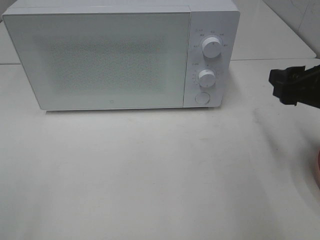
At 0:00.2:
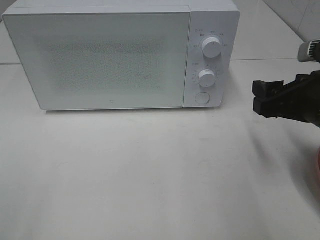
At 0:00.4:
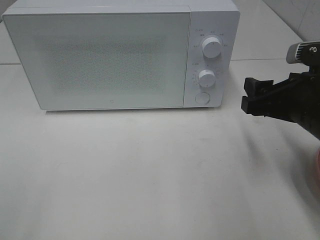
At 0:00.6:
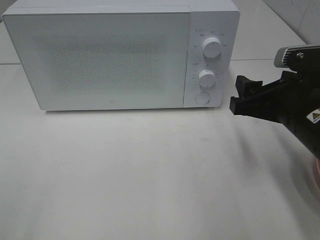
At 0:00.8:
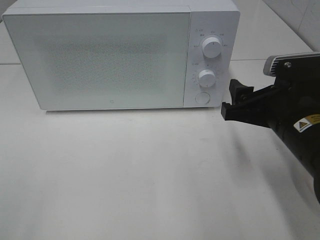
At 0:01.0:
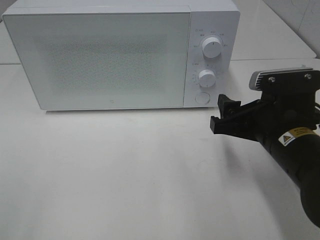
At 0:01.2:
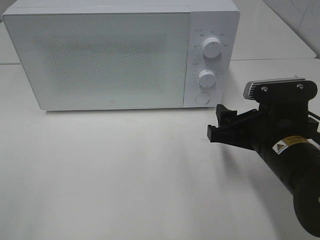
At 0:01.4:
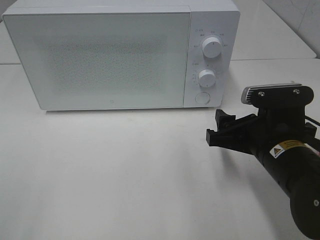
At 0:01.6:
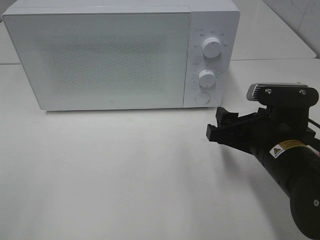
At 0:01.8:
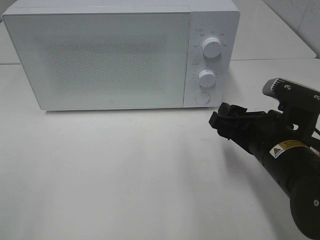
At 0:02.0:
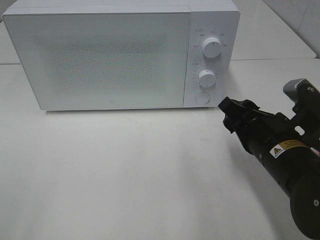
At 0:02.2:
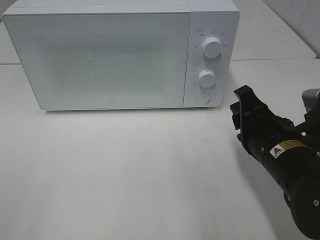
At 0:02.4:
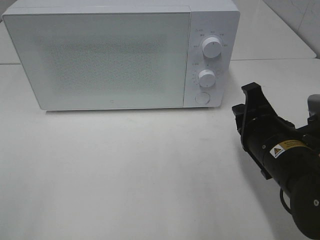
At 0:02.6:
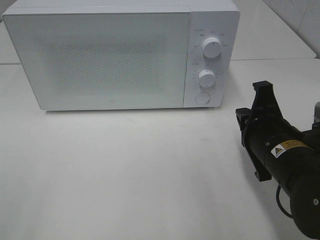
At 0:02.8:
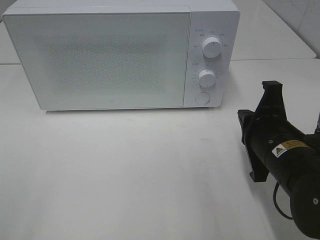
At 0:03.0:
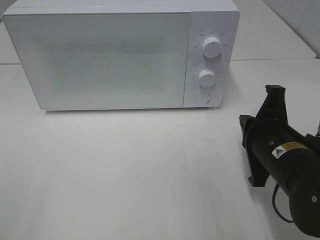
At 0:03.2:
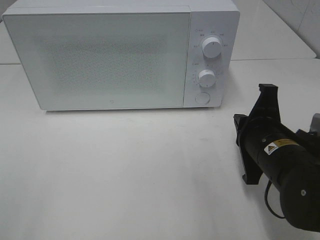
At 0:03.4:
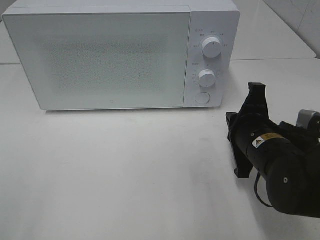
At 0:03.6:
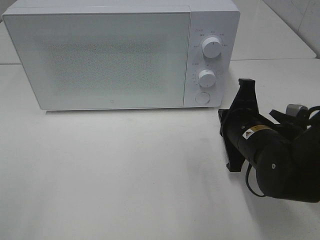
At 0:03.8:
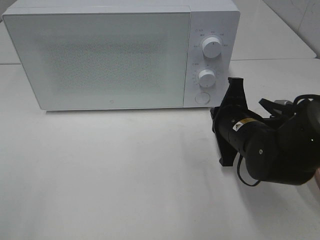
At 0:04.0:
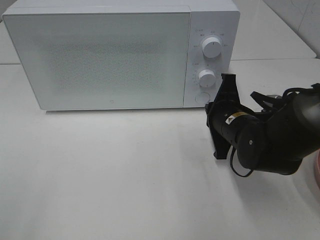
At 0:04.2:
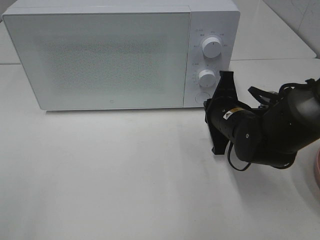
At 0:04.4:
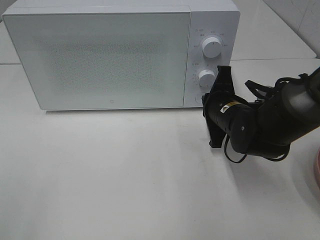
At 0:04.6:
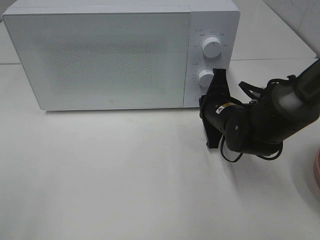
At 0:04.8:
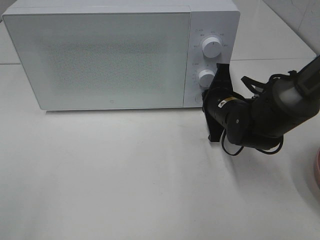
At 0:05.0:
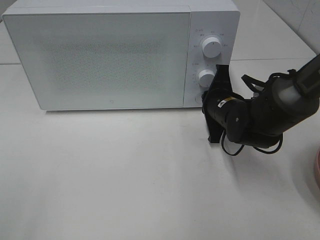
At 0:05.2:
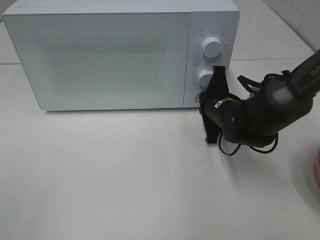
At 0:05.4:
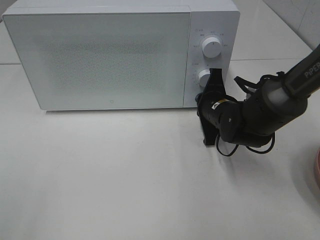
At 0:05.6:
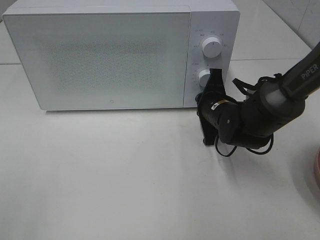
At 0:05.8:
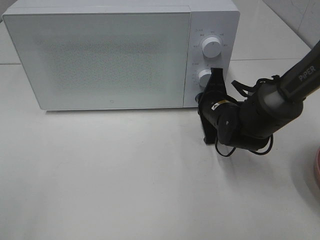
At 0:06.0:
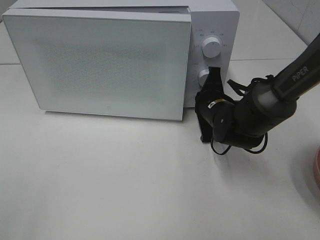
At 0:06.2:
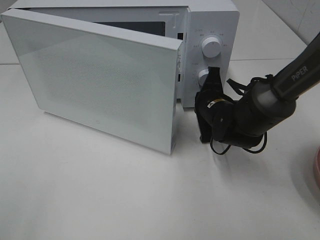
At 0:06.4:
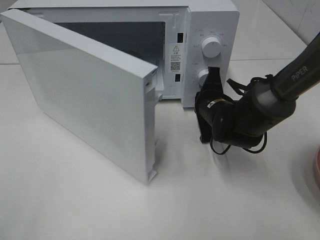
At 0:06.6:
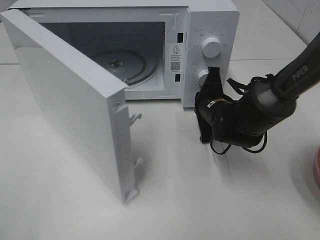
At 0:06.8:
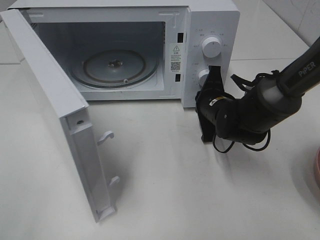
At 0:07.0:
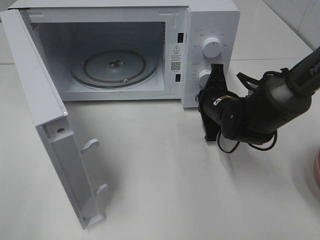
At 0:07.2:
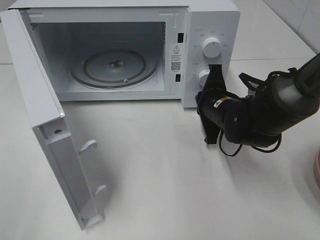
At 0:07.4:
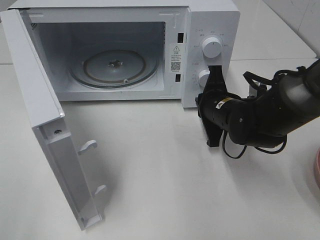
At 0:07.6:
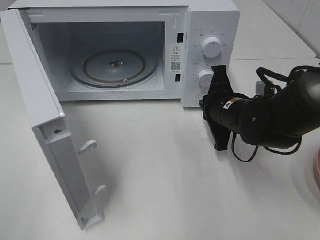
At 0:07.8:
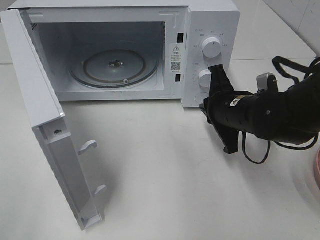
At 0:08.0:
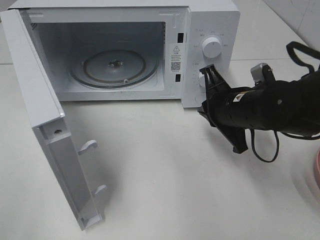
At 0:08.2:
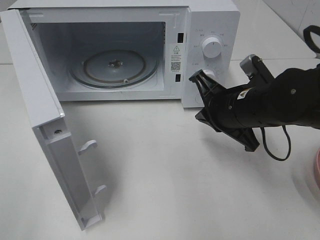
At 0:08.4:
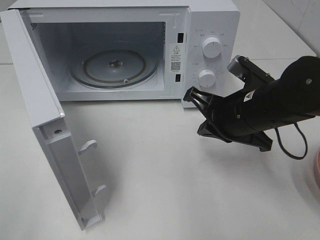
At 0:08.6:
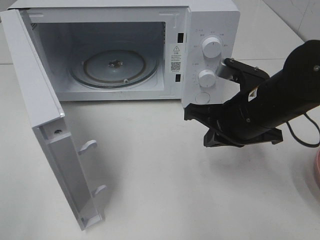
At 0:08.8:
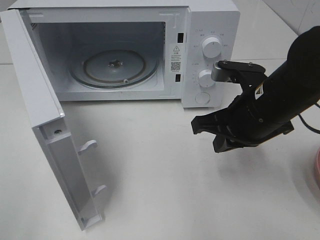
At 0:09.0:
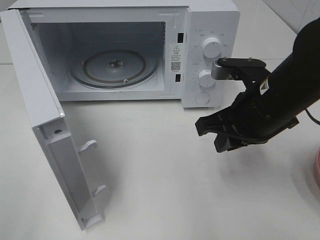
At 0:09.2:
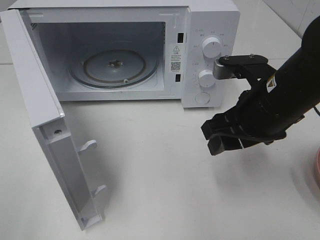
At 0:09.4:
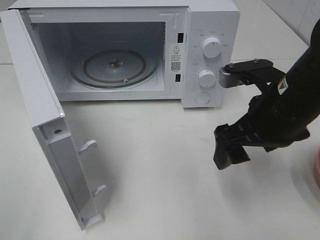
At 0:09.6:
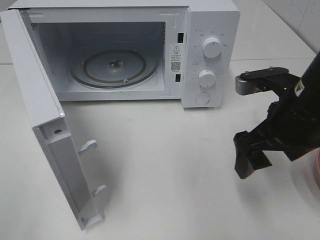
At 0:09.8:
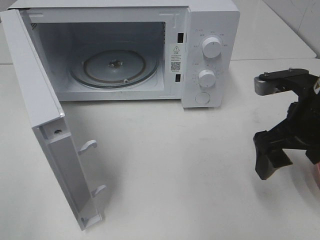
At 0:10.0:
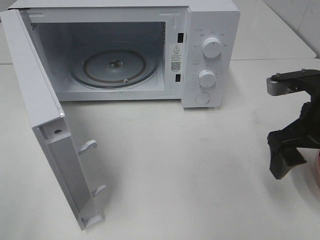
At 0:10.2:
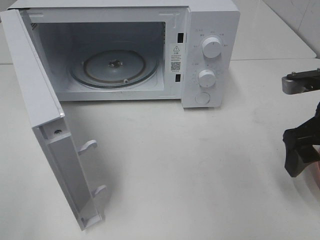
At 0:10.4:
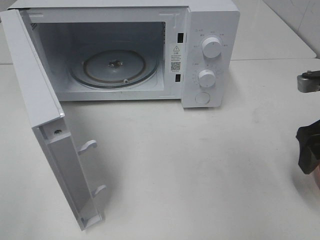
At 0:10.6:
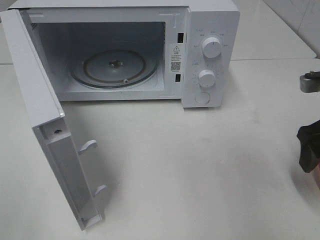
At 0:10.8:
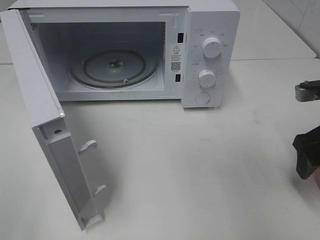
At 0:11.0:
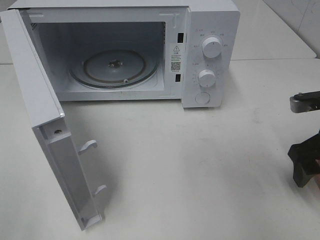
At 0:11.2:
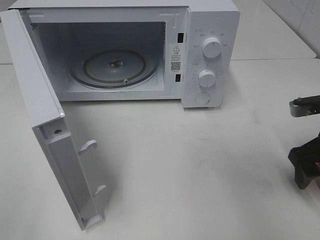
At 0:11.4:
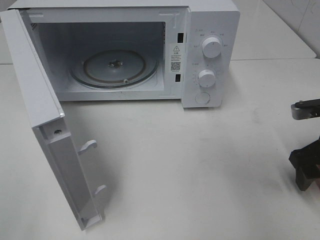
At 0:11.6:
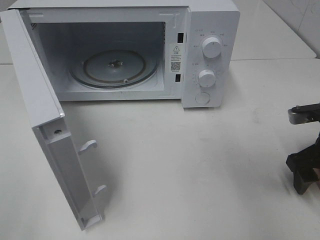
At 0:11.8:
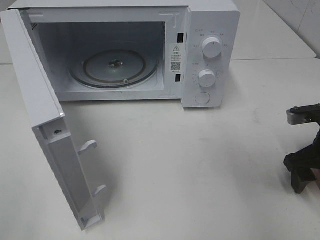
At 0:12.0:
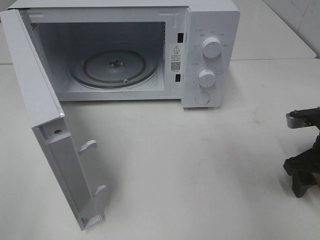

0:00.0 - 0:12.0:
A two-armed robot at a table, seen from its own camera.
Task of the whole recording: Heat the burger.
Step, 0:00.0 - 0:07.4: Right hand: press the switch.
0:00.0 - 0:01.6: The right gripper moves to the left and downward, roughly 10 cm.
0:01.6 - 0:03.0: The right gripper closes its fingers.
0:03.0 - 0:04.4: The right gripper shifts some 10 cm forward.
0:04.4 - 0:06.0: The grippers make only small movements.
0:06.0 - 0:07.6: The right gripper shifts by approximately 5 cm.
0:07.6 - 0:09.0: The right gripper travels upward and backward by approximately 10 cm.
0:09.0 - 0:10.4: The right gripper heads to the right, covering some 15 cm, and opens up.
0:10.4 - 0:12.0: The right gripper moves downward, some 10 cm.

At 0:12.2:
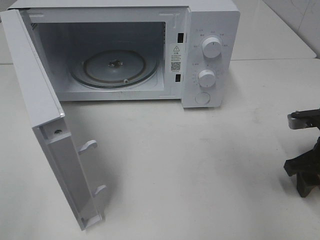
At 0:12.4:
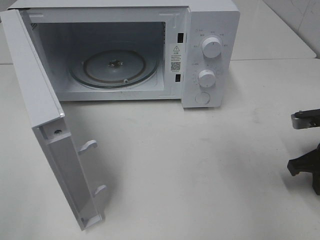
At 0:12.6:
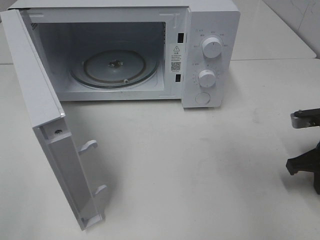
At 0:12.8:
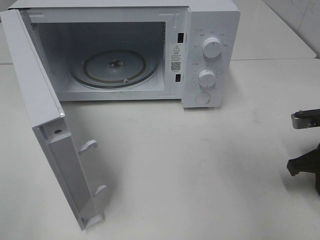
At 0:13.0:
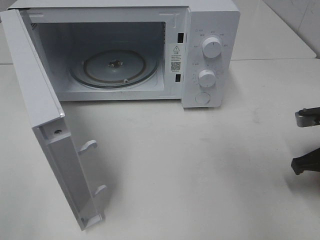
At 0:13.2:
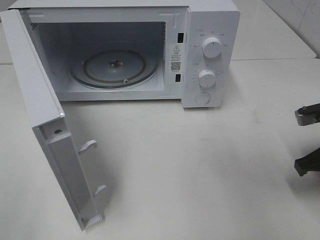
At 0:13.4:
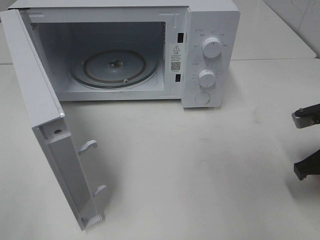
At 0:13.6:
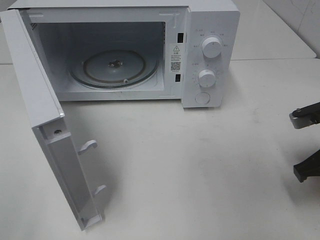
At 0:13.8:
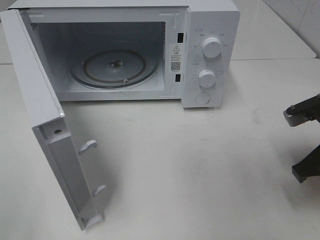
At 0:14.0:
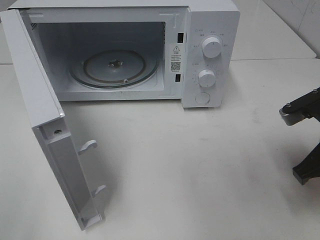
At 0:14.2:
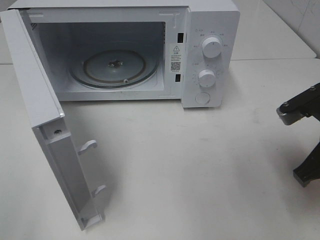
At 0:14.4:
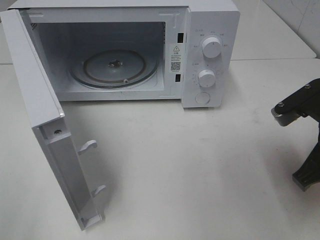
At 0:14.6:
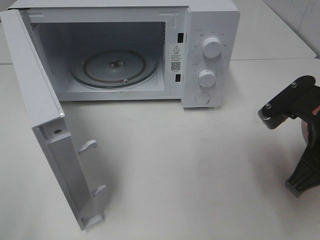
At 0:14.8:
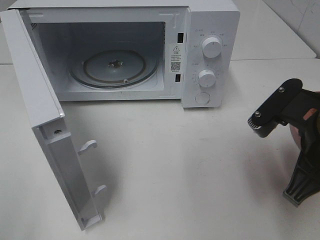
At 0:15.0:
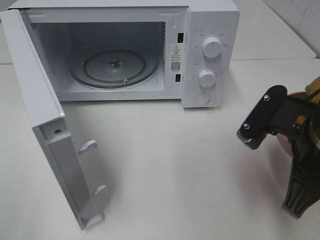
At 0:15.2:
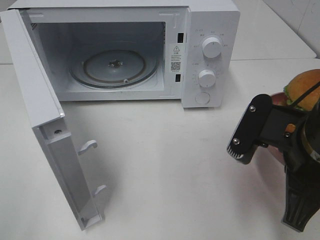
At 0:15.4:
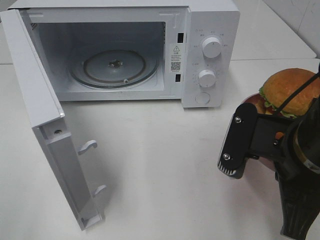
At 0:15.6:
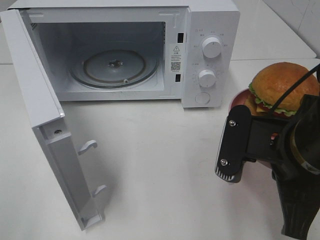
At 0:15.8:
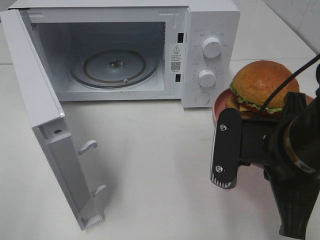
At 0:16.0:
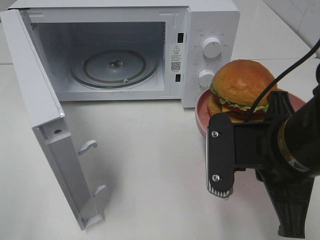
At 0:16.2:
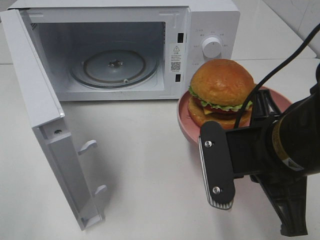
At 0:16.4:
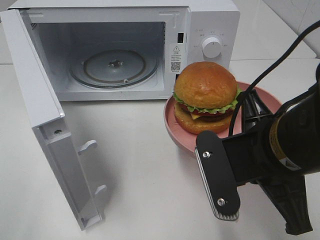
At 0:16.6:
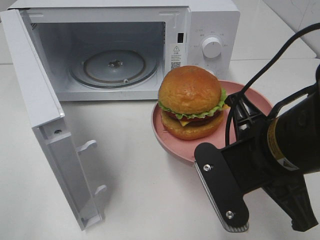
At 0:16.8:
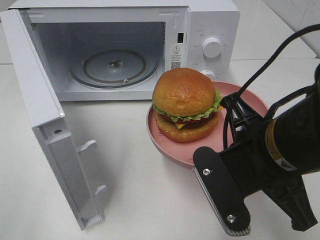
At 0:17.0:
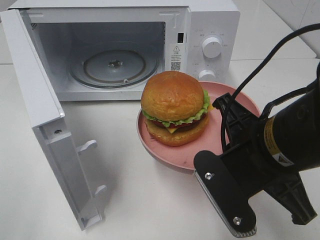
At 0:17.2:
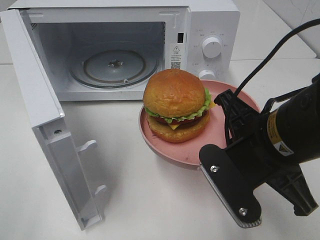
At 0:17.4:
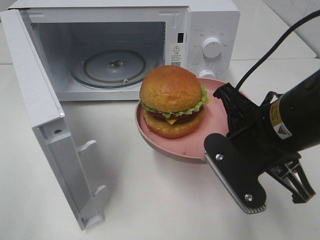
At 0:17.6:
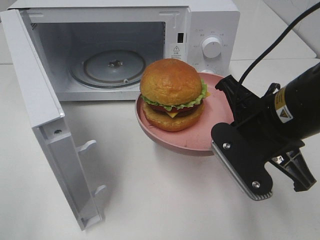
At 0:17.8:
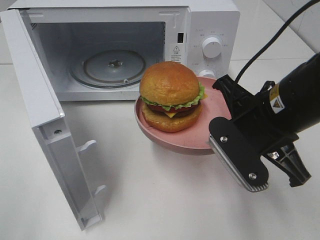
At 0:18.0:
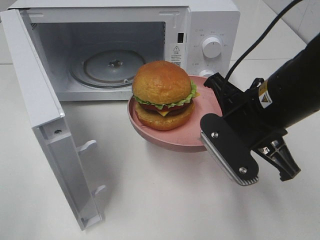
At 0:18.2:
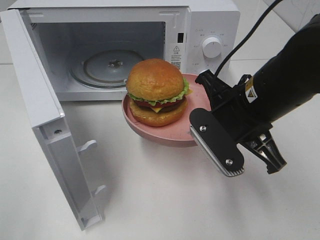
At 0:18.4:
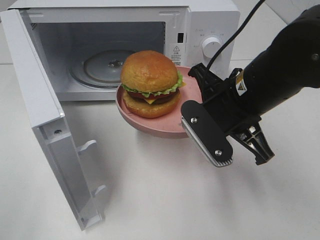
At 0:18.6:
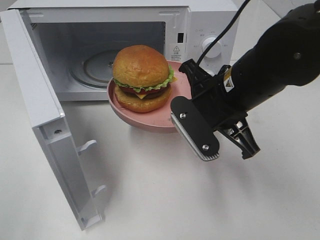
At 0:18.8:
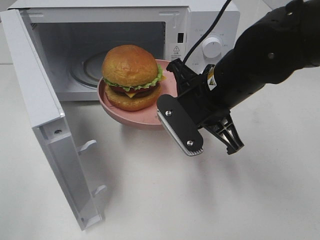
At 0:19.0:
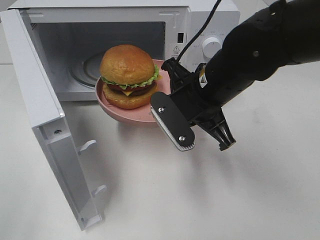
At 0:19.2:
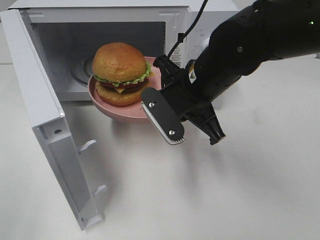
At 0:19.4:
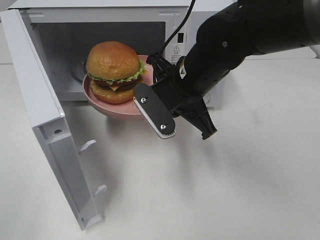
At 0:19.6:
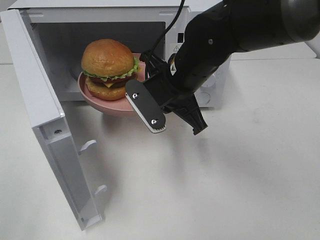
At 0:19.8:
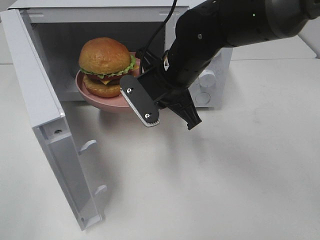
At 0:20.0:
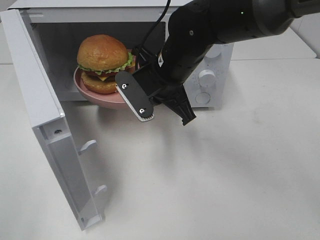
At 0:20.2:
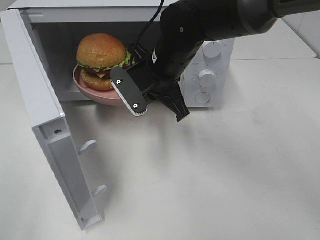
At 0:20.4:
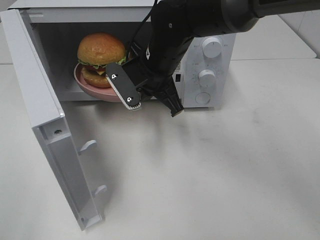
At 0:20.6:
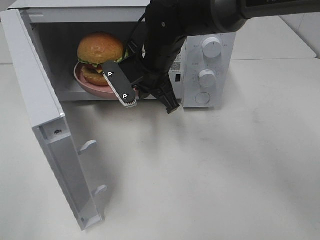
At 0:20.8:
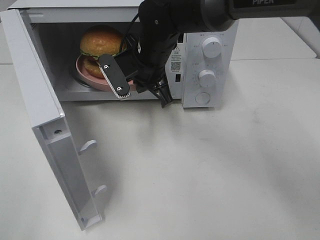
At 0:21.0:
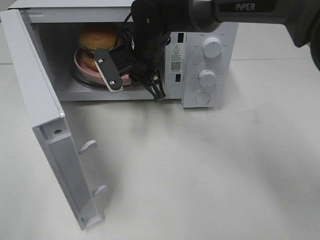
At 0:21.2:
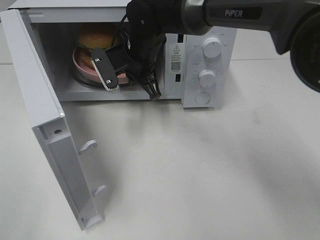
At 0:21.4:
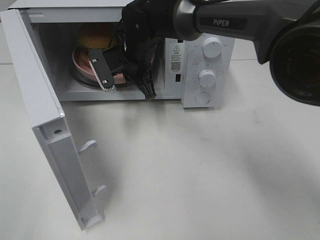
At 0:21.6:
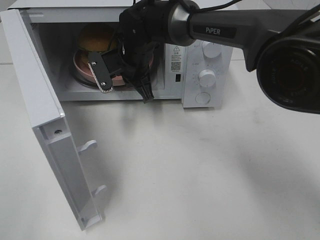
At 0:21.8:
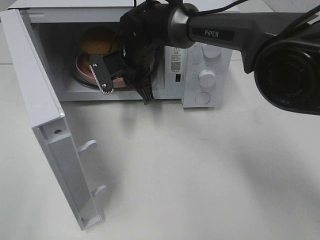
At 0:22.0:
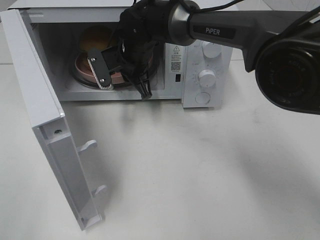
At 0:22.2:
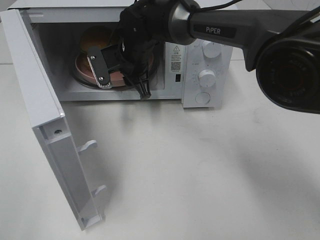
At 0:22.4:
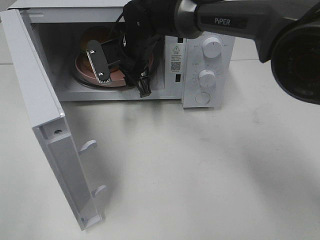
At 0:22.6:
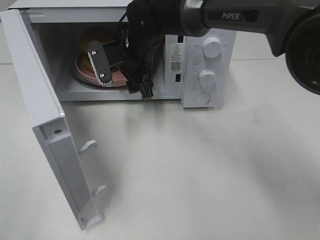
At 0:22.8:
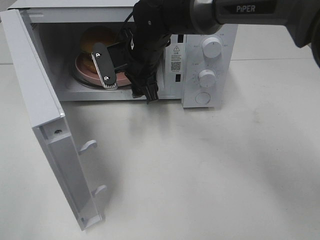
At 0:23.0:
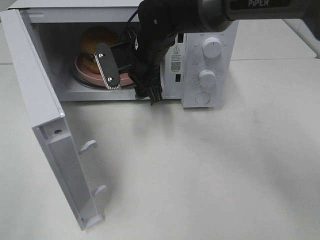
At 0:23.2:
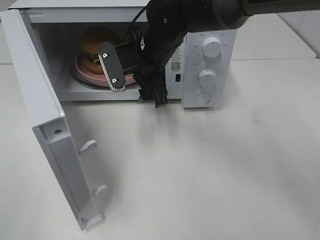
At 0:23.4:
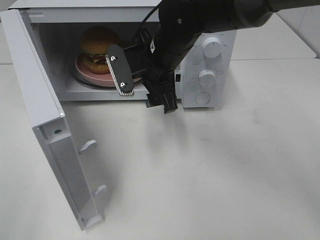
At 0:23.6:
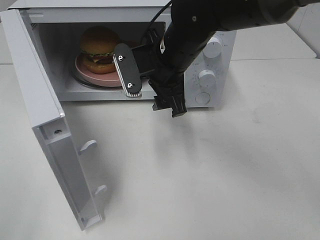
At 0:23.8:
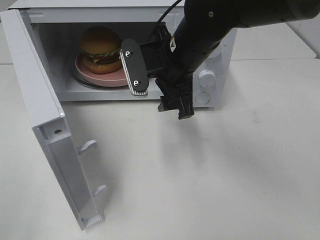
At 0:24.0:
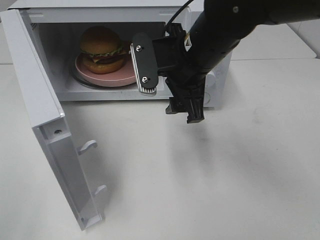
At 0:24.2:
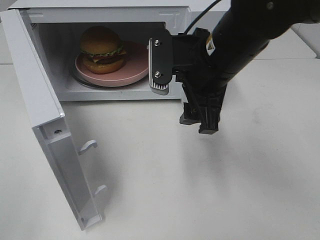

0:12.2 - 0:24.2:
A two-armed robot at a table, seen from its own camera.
Task of the whole recording: Heat the burger.
Step, 0:13.6 - 0:22.2: Right hand: place the plate in the microwave.
0:12.2 - 0:13.8: The right gripper ends up roughly 5 cm from where it was, and closes.
0:13.8 - 0:15.2: The right gripper shifts approximately 10 cm to the left and backward.
0:16.6 - 0:18.2: The right gripper travels forward by about 10 cm.
0:18.2 - 0:19.8: The right gripper heads forward and to the left, covering some 15 cm.
0:19.8 - 0:21.2: The right gripper shifts some 10 cm forward and to the left.
0:21.2 - 0:22.6: The right gripper opens up.
0:22.6 - 0:24.2: The right gripper shifts about 20 cm backward, to the right and upward.
